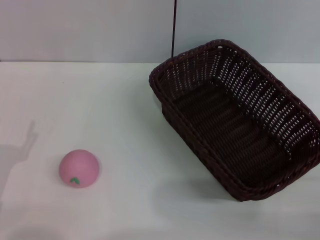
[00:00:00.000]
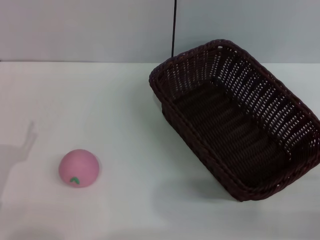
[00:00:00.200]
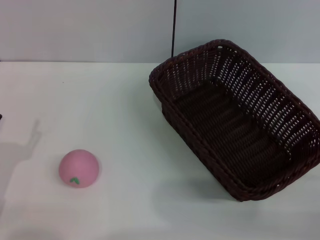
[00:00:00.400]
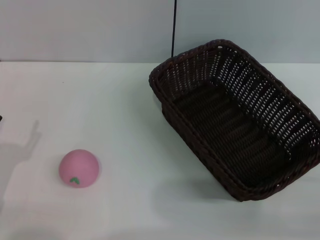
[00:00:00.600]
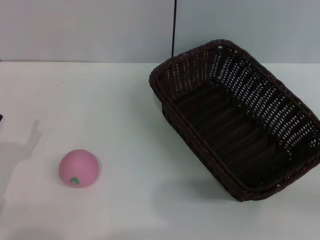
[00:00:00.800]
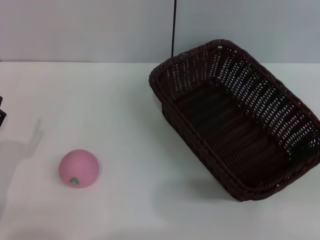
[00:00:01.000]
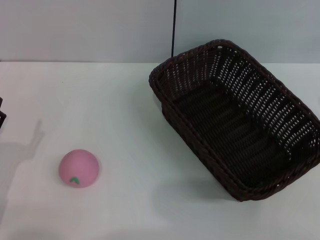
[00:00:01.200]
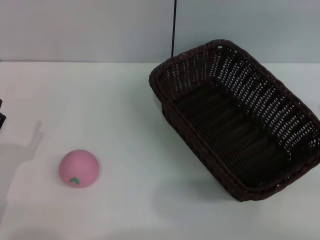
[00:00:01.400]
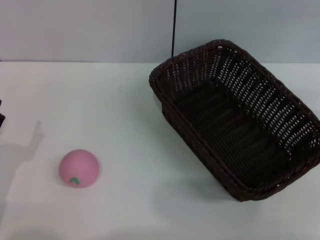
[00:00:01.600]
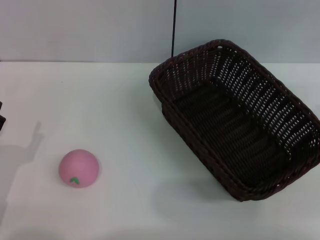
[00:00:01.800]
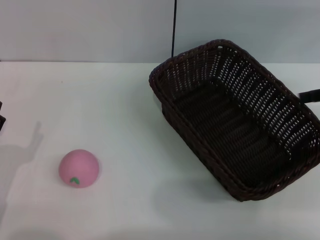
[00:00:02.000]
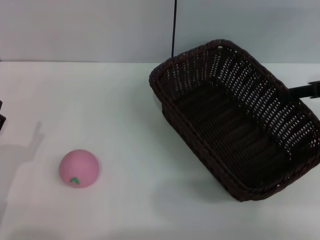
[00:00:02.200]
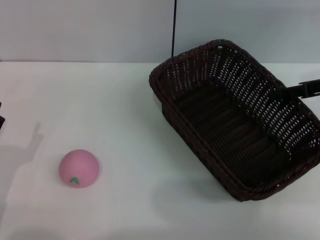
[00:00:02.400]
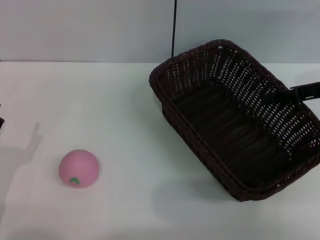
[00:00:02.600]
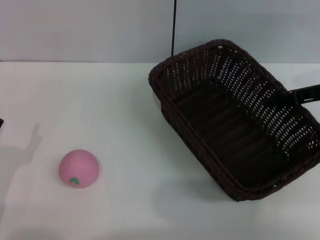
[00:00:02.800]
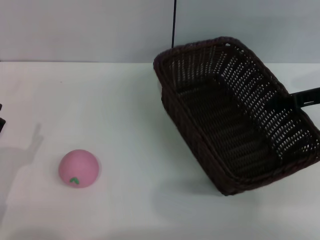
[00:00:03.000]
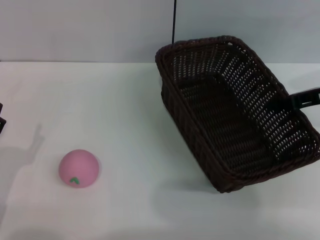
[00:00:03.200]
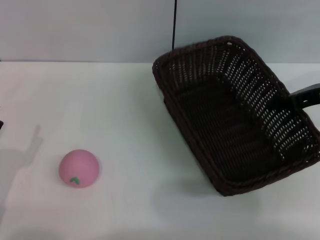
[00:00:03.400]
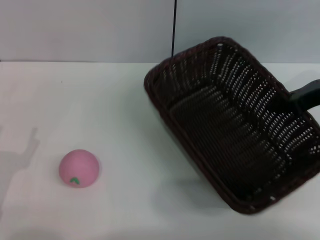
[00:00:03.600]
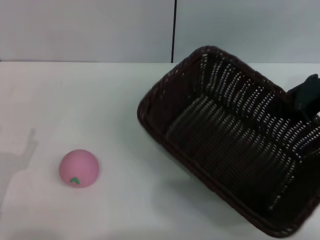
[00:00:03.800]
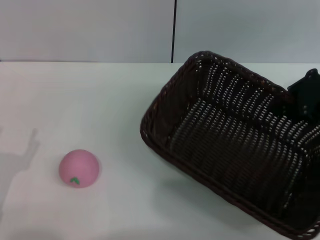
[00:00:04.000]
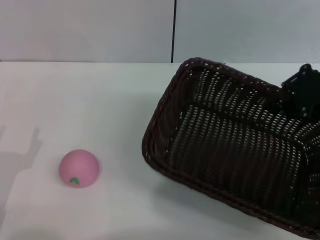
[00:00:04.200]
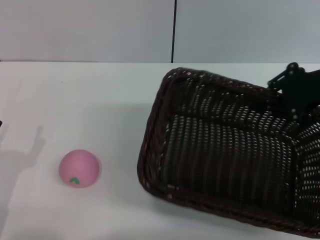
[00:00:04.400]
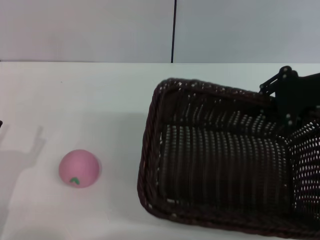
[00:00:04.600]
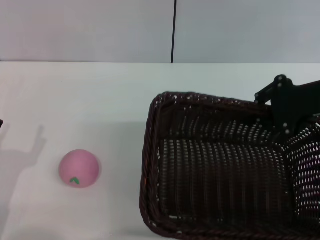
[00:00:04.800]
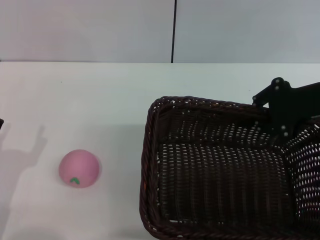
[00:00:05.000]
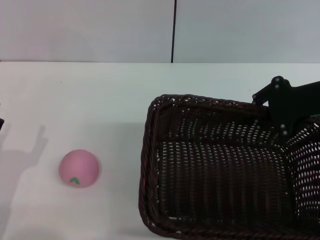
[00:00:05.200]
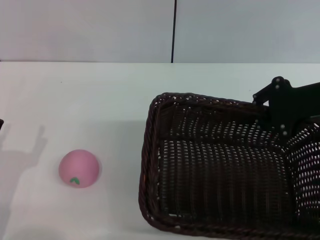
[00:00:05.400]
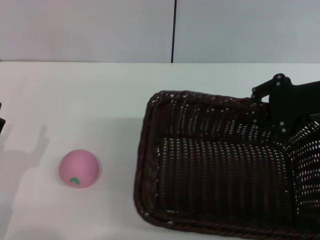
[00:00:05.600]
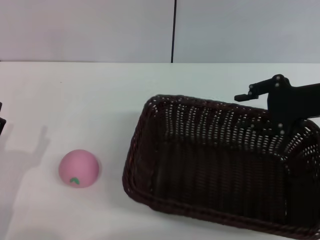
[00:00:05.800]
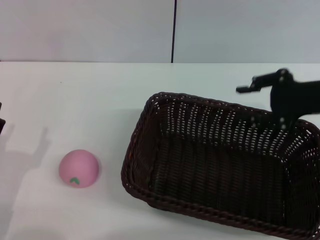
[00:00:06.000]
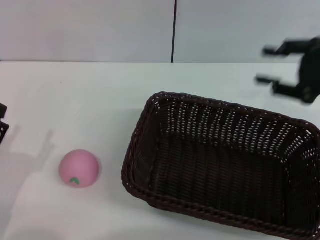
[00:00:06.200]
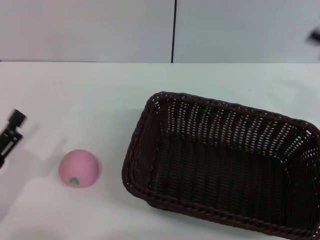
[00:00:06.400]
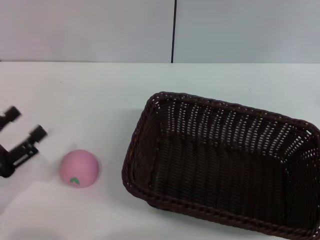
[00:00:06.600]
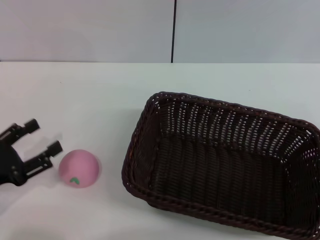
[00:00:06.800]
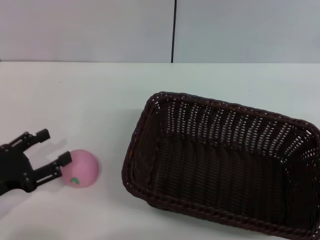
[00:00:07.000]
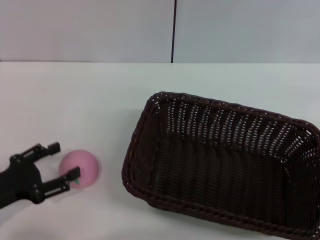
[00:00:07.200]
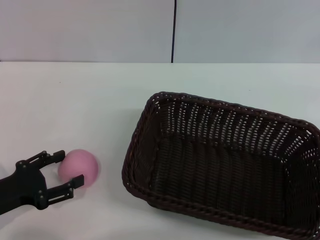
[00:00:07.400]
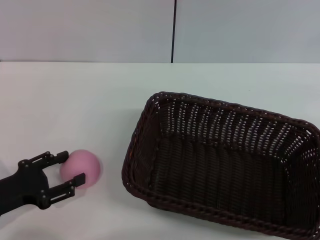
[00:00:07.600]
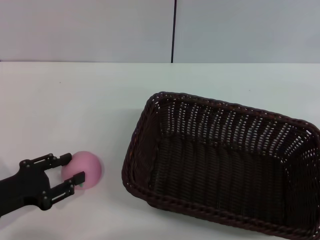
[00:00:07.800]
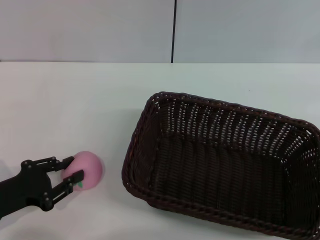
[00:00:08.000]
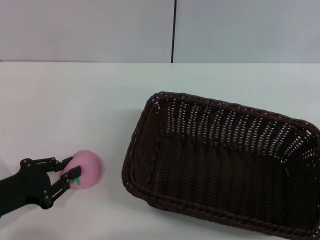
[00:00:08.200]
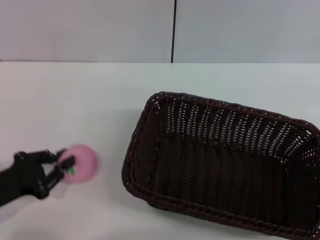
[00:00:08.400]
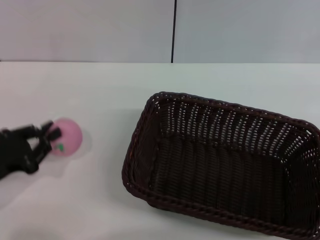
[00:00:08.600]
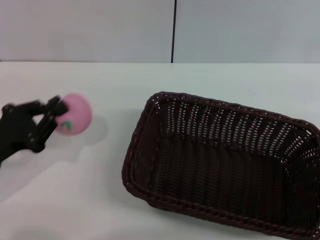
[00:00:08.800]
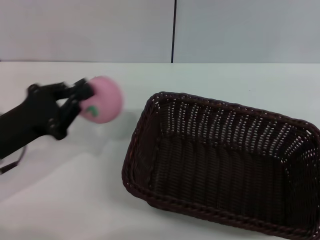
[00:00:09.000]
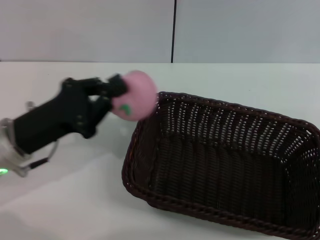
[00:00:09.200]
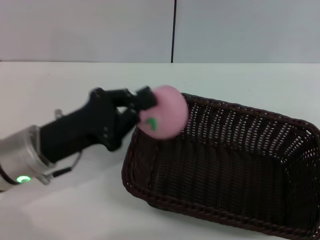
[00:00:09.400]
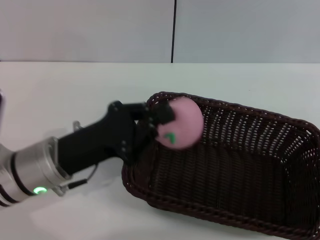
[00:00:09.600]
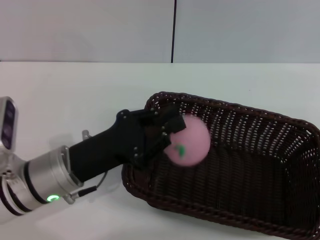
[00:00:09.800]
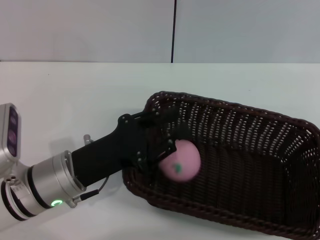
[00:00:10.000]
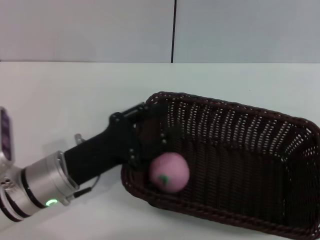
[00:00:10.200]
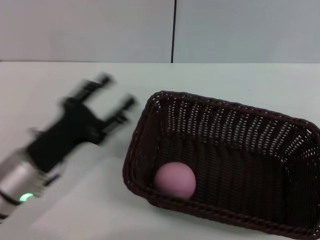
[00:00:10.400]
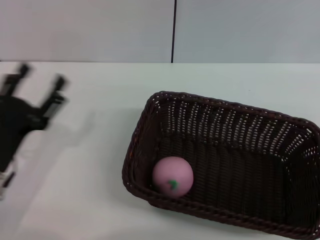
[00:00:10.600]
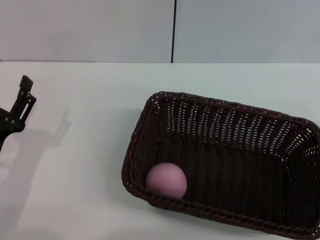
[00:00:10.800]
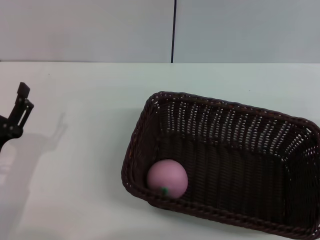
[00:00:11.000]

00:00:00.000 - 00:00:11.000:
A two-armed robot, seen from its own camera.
Step, 00:00:00.000 - 00:00:04.000: Pick up the dark basket with the right gripper.
Step, 00:00:04.200 - 00:00:06.000: Place the dark basket in the center of view with the right gripper.
Step, 00:00:06.200 - 00:00:08.800: Pick up the peach with the left gripper.
Step, 00:00:09.000 - 00:00:10.000: Place the peach into the basket with the left gripper.
00:00:01.600 - 00:00:03.200: The right gripper goes approximately 15 cm to the left, downward and forward, and closes up.
00:00:03.200 - 00:00:04.800: The right gripper changes place by about 5 cm.
00:00:04.800 - 00:00:06.200: The right gripper opens up.
00:00:06.200 - 00:00:07.800: The left gripper goes about 5 cm forward; the right gripper is displaced backward, downward and to the right by roughly 20 cm.
00:00:07.800 - 00:00:09.400: The left gripper heads to the right, forward and upward, covering approximately 15 cm, and closes its fingers.
00:00:09.400 - 00:00:11.000: The left gripper is displaced backward, to the left and downward by approximately 10 cm, and opens up.
